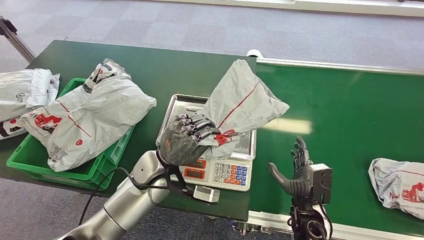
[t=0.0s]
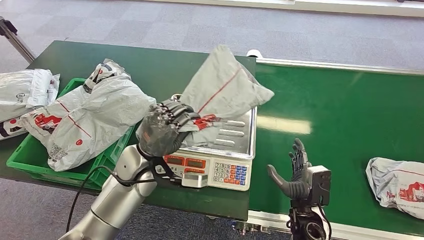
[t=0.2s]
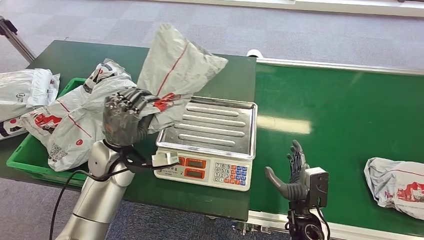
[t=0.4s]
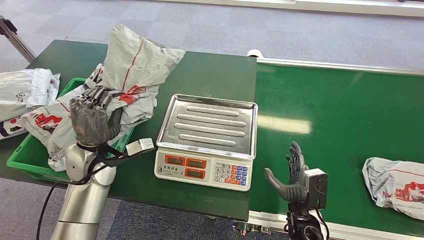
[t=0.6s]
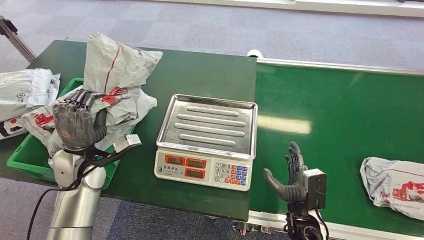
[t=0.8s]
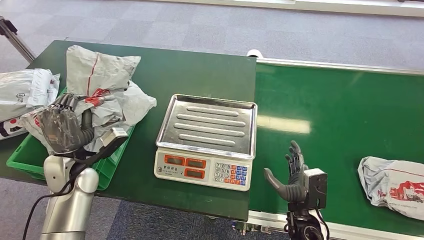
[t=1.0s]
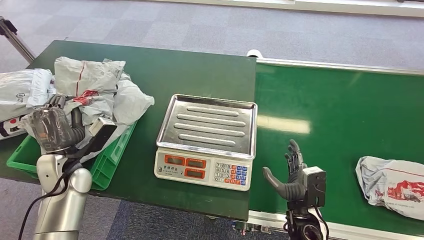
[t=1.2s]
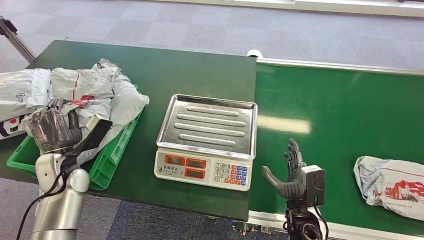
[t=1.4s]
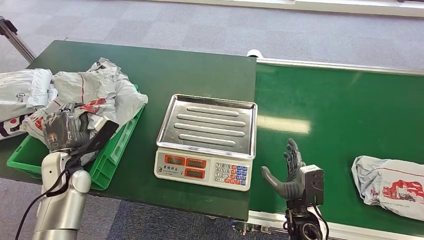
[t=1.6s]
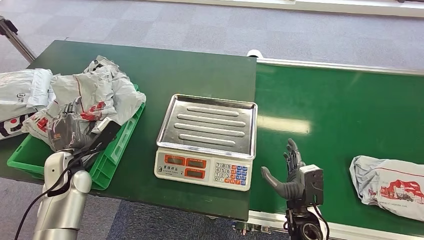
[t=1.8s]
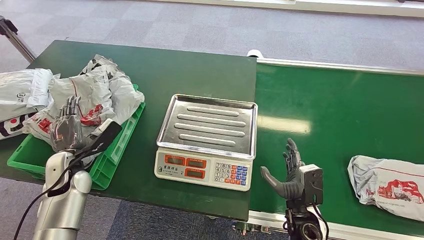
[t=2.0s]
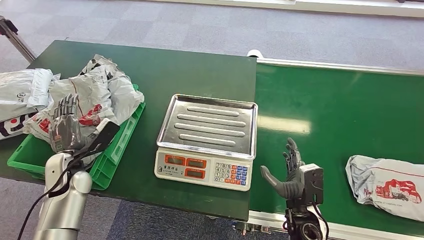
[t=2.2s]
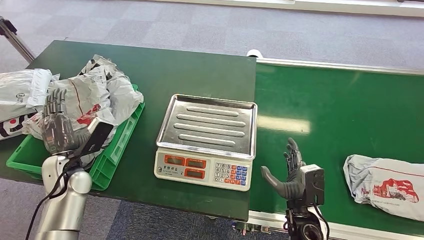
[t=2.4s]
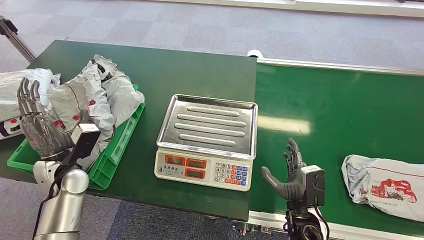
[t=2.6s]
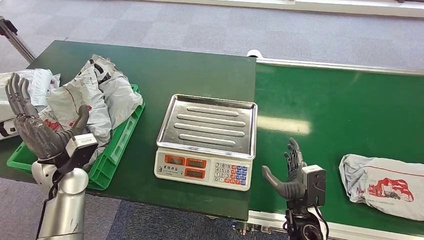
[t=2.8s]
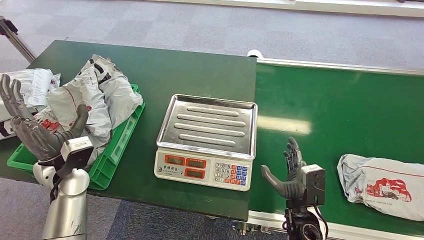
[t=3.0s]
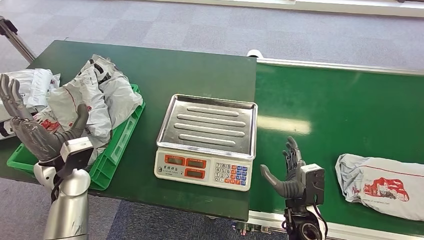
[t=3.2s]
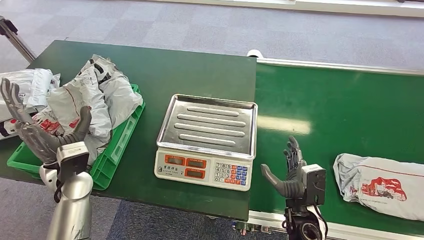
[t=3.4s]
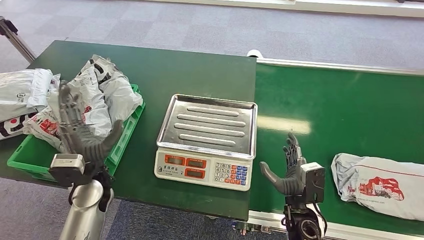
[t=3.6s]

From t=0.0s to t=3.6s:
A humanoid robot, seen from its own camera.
Task of the whole recording: Weigh the package on the weighing device and place it in the left basket.
Step, from t=0.6s to t=3.6s: Place the package into the parcel locker.
From t=1.8s to t=3.6s: The left hand heads to the right, covering some 10 cm.

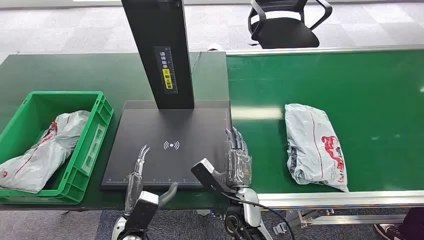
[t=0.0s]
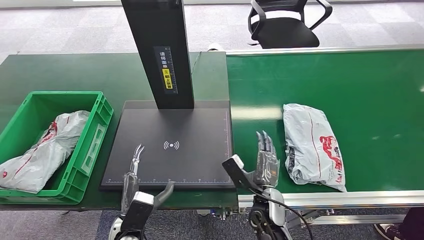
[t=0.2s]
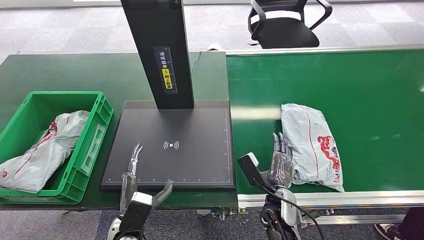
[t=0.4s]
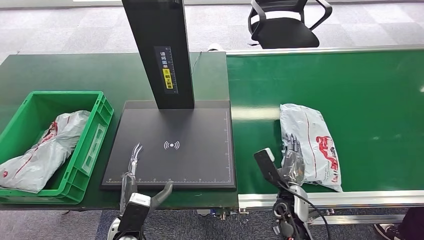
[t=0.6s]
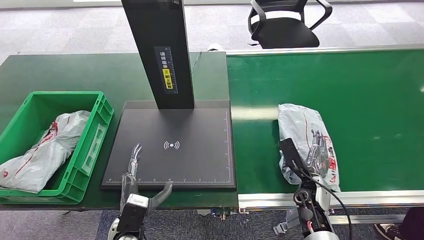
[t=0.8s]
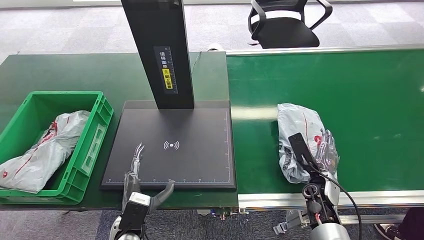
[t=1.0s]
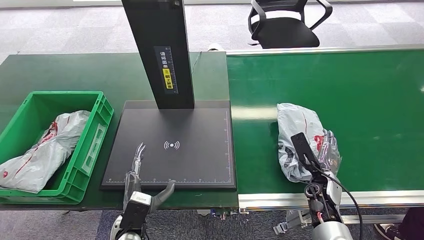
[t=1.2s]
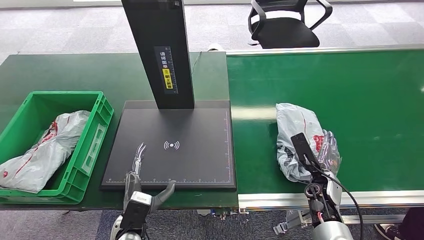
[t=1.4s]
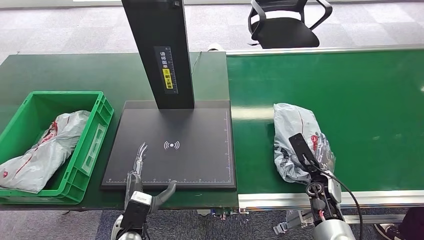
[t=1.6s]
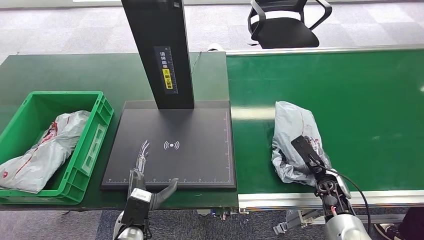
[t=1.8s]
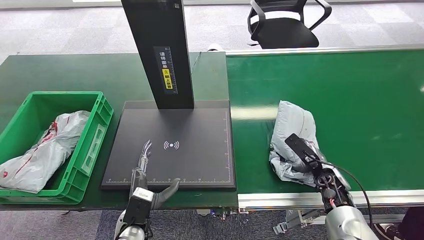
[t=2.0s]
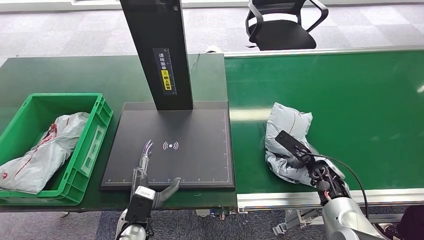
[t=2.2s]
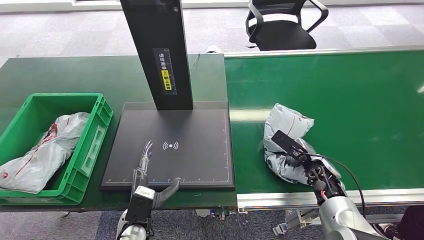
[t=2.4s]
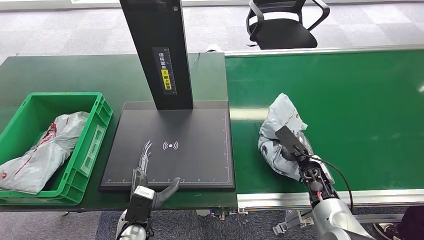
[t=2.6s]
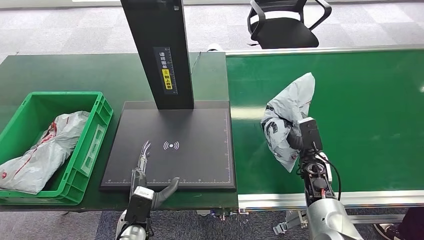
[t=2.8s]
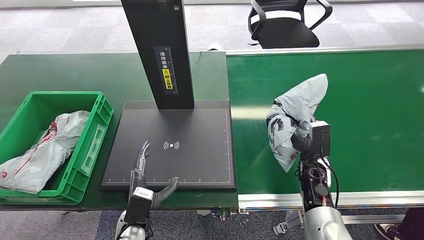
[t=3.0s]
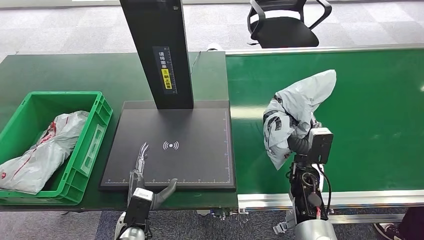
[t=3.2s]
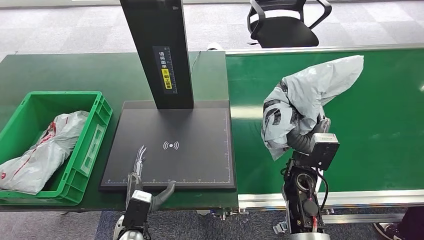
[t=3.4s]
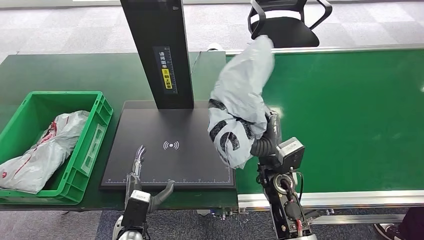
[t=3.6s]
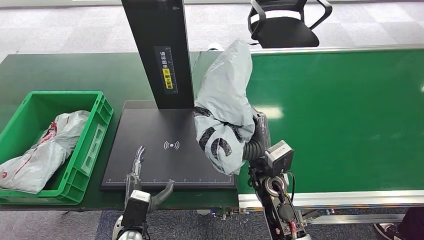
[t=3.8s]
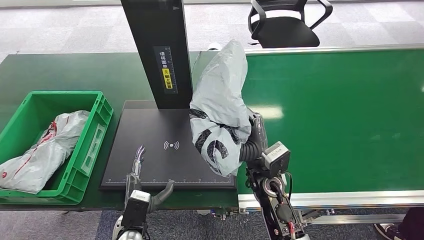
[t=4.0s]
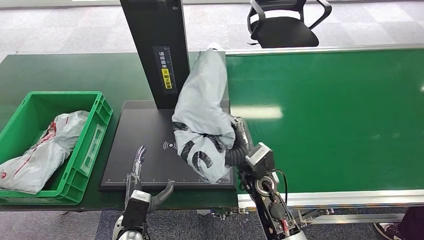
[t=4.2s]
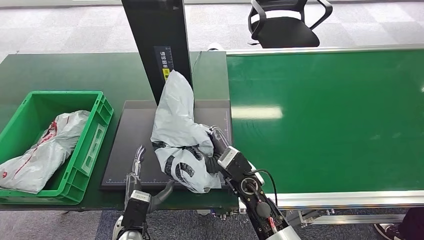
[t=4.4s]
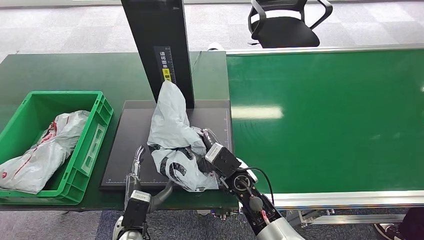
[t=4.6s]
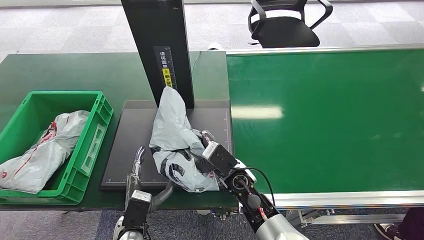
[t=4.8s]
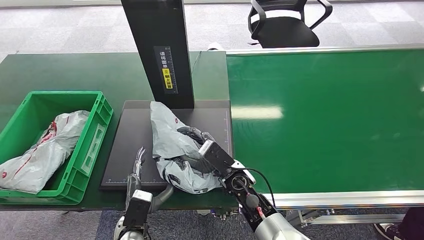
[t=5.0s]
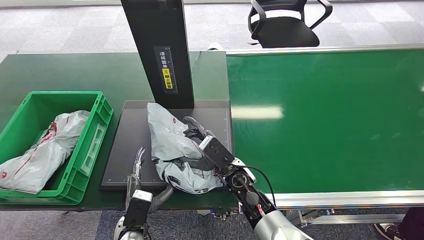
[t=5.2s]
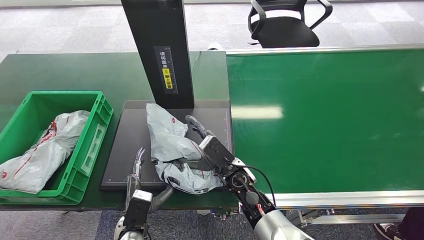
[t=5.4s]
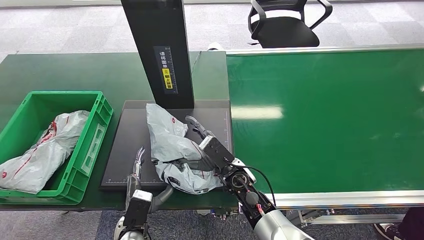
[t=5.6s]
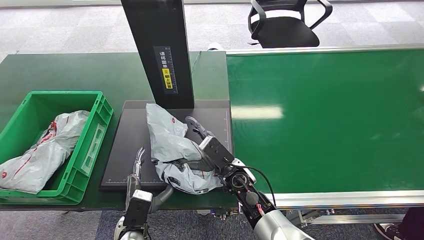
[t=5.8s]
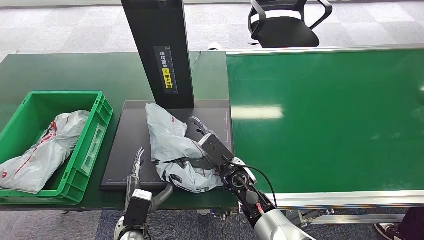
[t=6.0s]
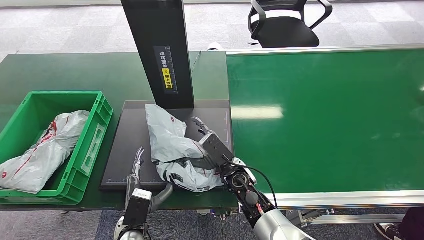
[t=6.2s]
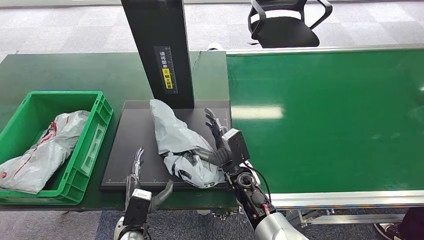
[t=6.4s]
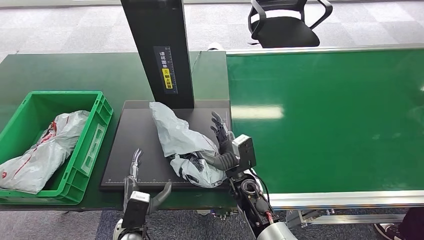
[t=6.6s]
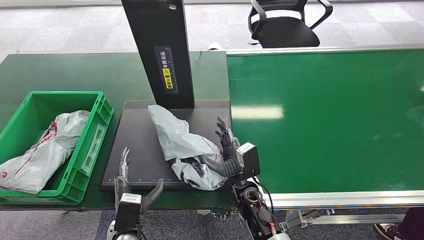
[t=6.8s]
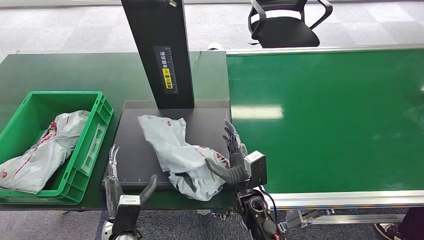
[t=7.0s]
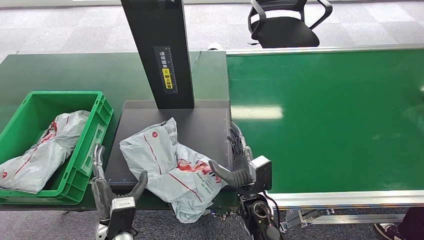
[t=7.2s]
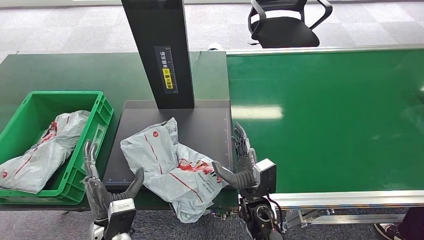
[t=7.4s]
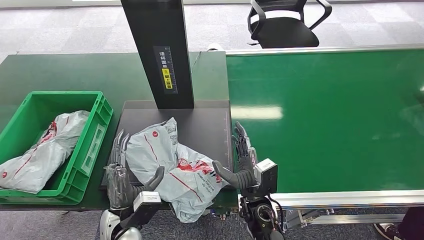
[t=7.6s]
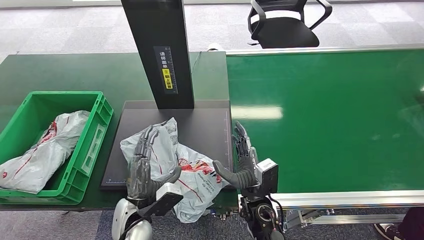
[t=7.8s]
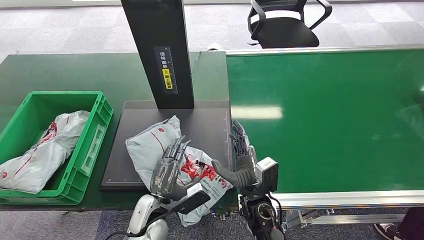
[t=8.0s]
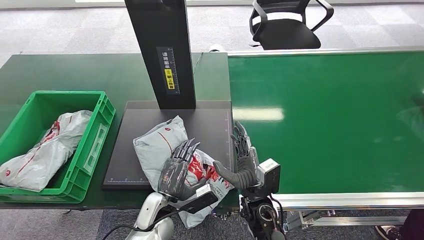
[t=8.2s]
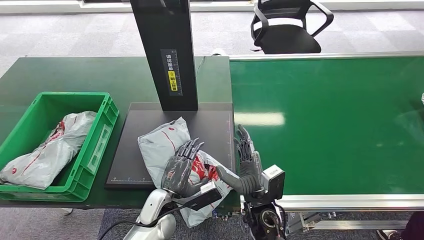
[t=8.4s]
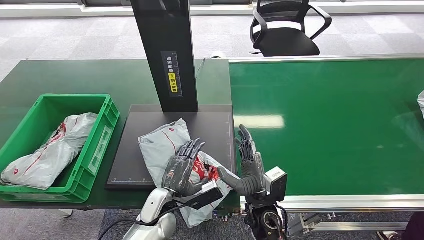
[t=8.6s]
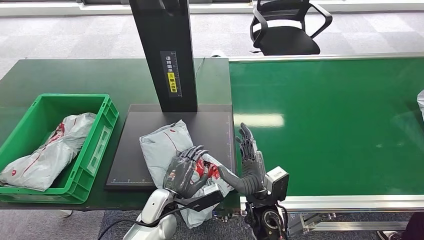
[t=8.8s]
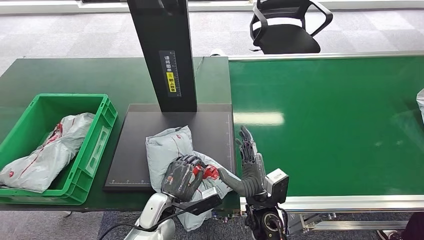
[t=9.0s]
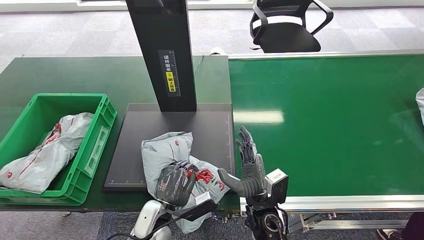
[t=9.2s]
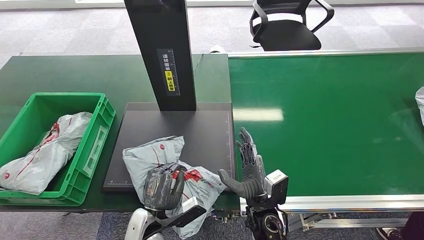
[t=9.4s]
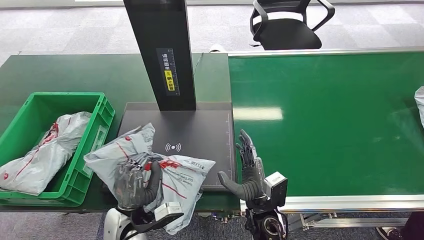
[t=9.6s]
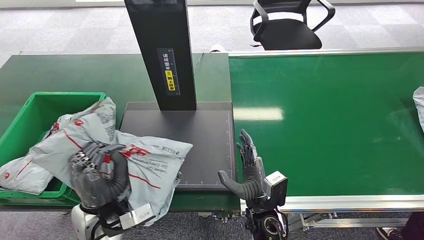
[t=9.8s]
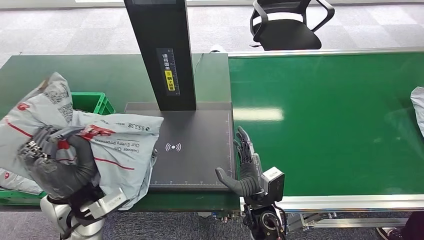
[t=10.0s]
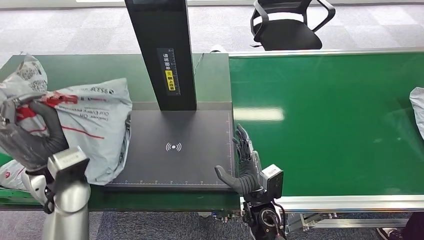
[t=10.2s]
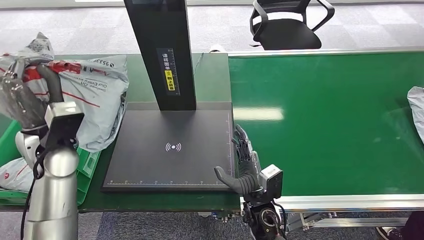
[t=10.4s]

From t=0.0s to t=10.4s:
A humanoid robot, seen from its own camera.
Task of the whole recording: Weigh the package on the weighing device and place it in the left basket.
Step, from t=0.0s to t=3.2s: Pick up the package from the conveyor belt.
Step, from t=3.6s to t=7.4s: Place the package onto the inbound machine.
Step, from t=7.6s to t=10.2s: Pick up the package from the inbound machine.
From t=1.4s to t=3.0s: The right hand changes place by about 5 cm.
From t=3.0s to t=4.4s: The right hand shifts some 20 cm to the left.
From t=6.0s to t=7.4s: The right hand heads backward, covering about 5 cm; the left hand goes some 5 cm upward.

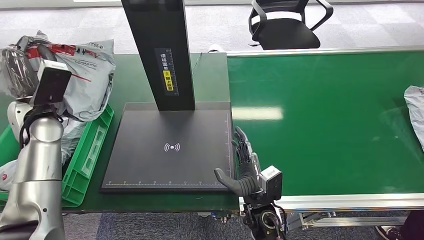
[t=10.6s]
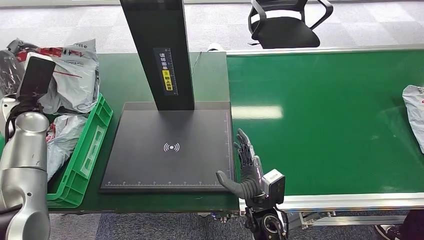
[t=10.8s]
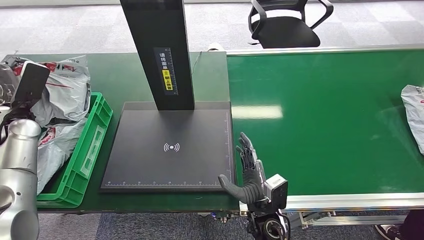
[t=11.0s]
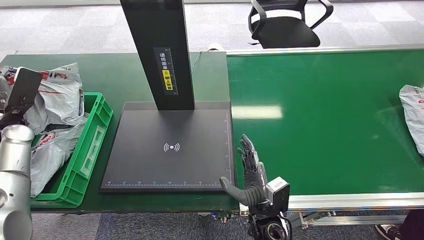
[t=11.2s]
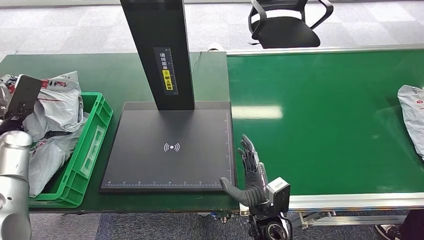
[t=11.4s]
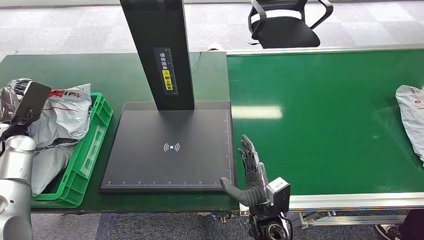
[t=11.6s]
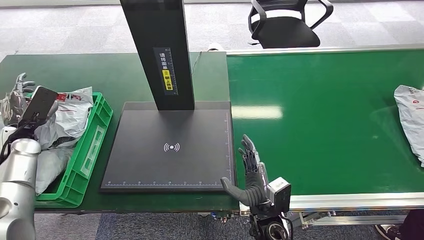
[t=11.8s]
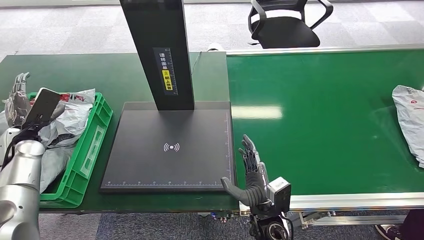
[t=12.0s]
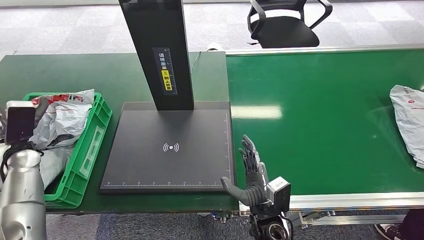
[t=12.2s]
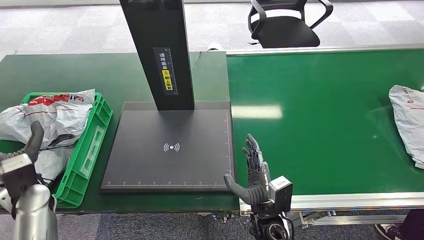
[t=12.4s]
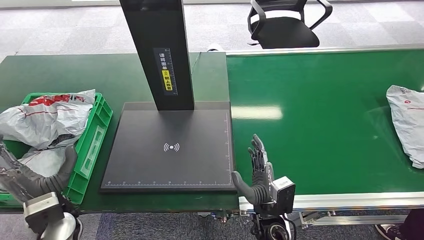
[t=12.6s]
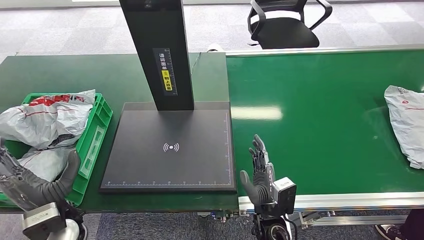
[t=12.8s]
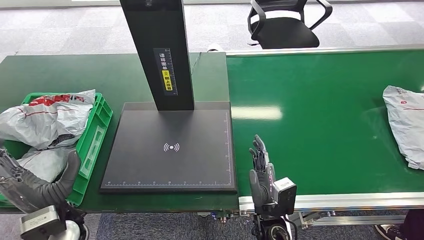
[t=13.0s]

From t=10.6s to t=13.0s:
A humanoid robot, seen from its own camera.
Task of the whole recording: Weigh the package on the weighing device and place it in the left basket.
Step, from t=10.6s to t=13.0s: Place the package into the parcel locker.
From t=11.8s to t=13.0s: The left hand shifts roughly 25 cm to the right and backward.
